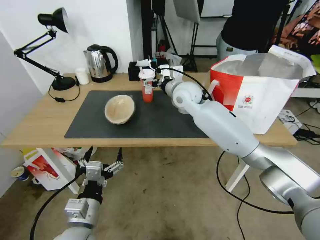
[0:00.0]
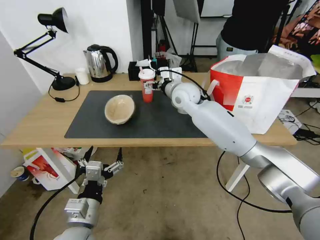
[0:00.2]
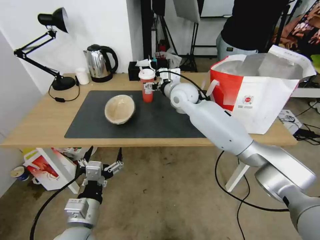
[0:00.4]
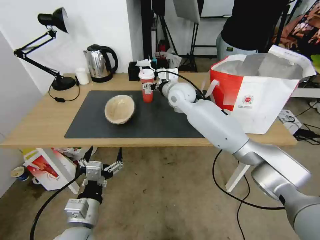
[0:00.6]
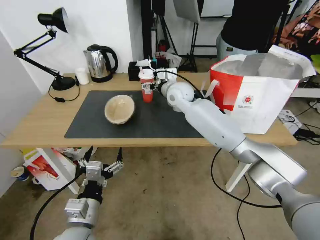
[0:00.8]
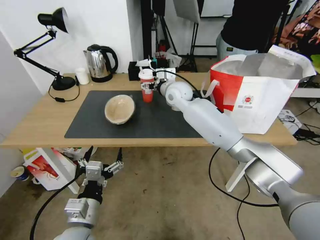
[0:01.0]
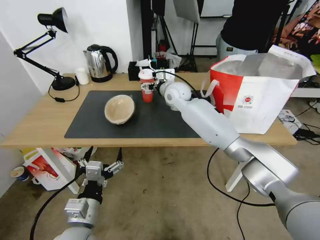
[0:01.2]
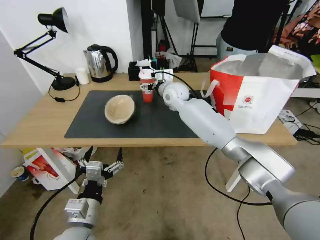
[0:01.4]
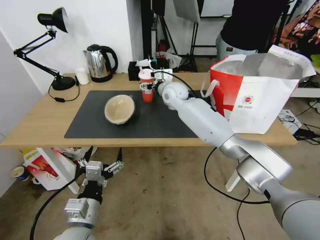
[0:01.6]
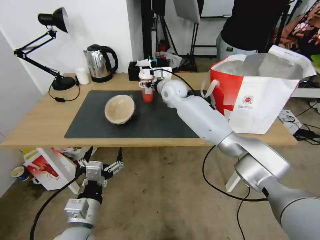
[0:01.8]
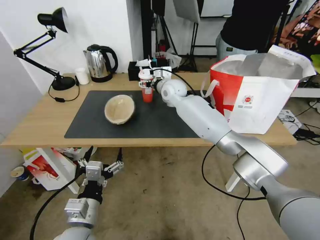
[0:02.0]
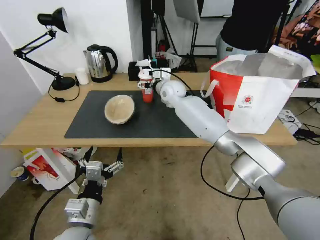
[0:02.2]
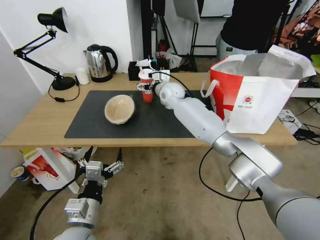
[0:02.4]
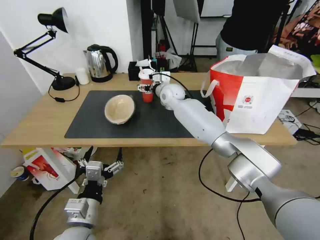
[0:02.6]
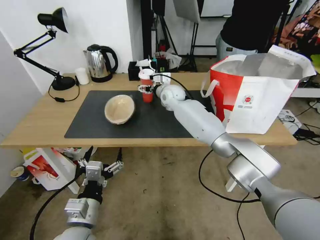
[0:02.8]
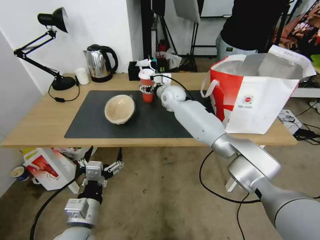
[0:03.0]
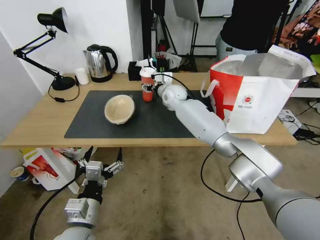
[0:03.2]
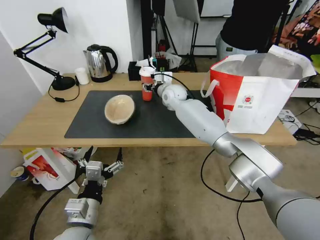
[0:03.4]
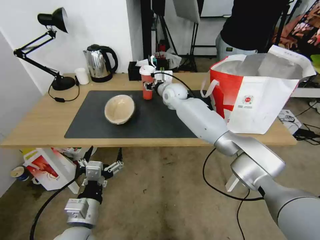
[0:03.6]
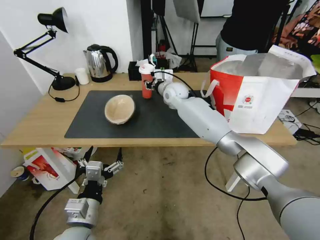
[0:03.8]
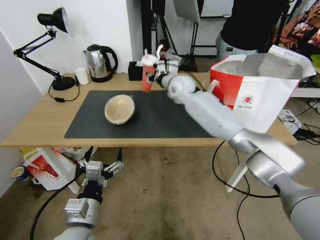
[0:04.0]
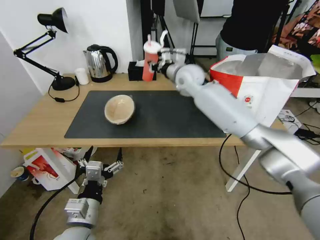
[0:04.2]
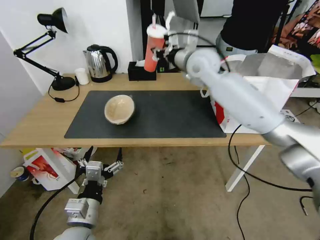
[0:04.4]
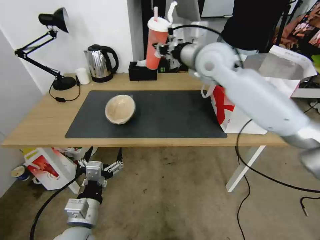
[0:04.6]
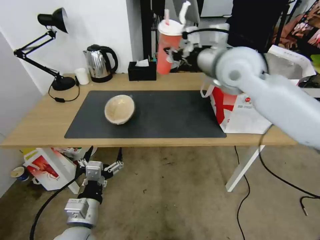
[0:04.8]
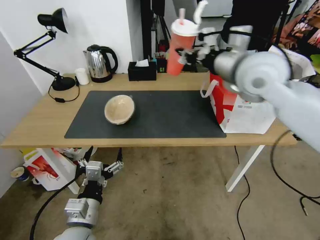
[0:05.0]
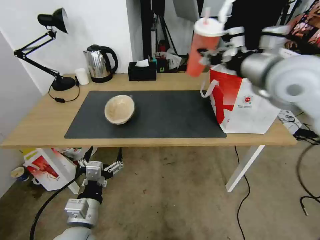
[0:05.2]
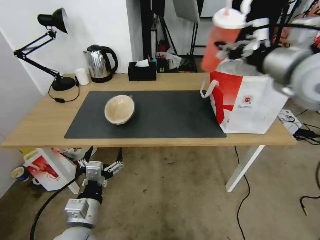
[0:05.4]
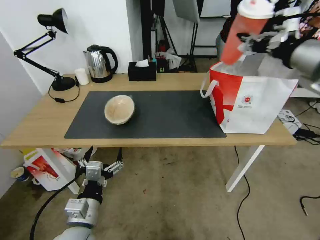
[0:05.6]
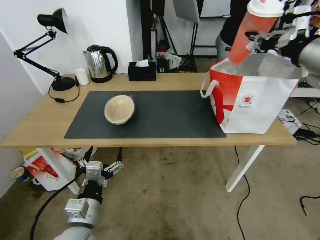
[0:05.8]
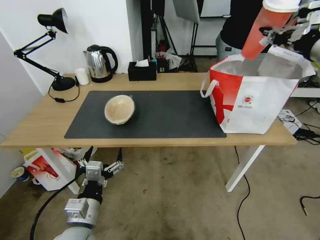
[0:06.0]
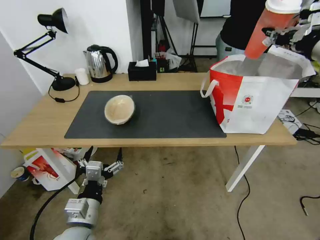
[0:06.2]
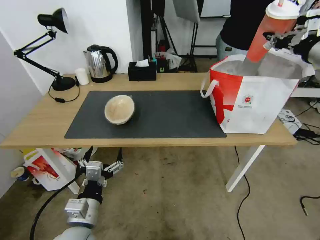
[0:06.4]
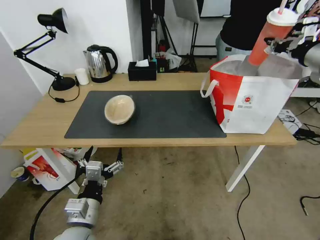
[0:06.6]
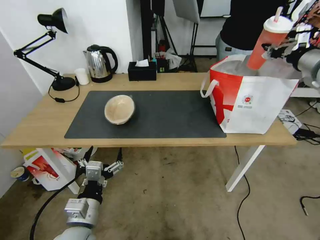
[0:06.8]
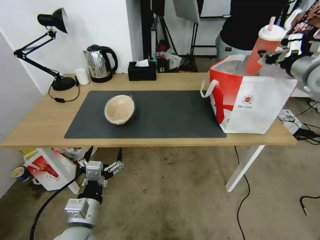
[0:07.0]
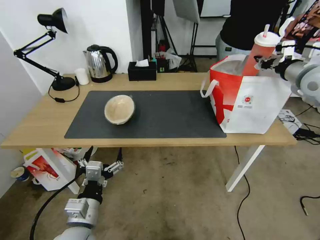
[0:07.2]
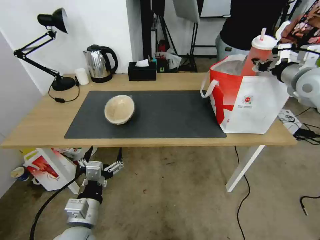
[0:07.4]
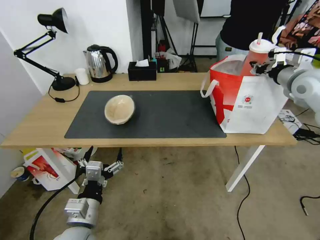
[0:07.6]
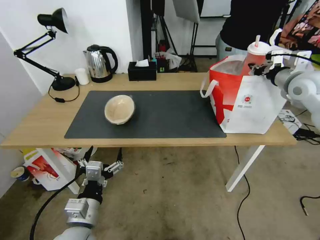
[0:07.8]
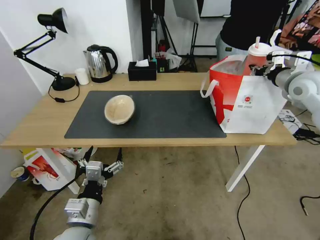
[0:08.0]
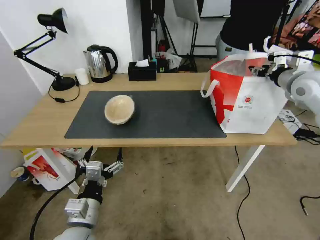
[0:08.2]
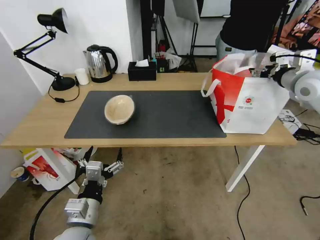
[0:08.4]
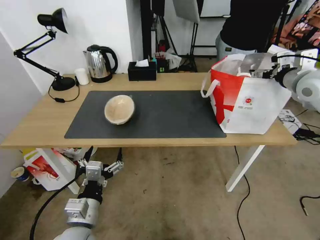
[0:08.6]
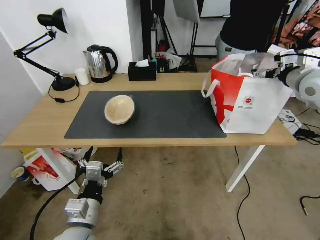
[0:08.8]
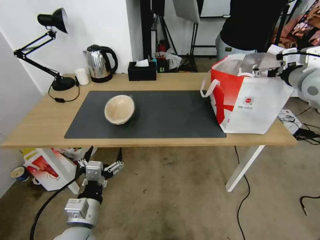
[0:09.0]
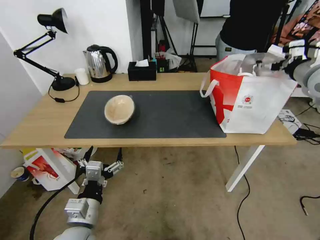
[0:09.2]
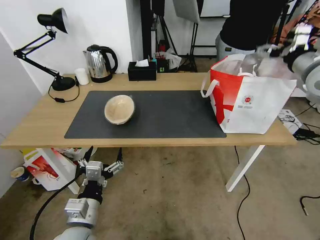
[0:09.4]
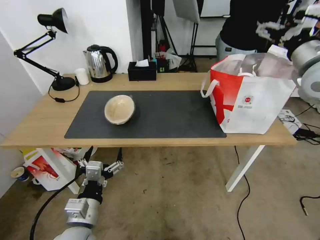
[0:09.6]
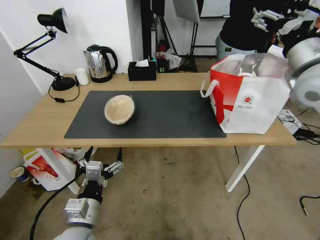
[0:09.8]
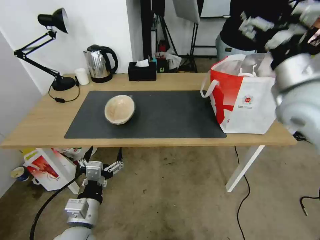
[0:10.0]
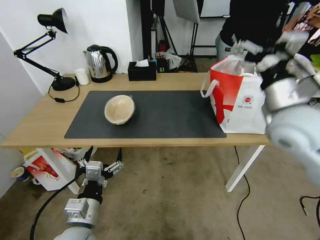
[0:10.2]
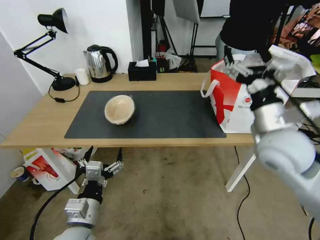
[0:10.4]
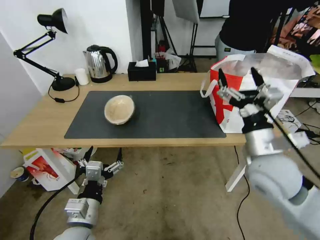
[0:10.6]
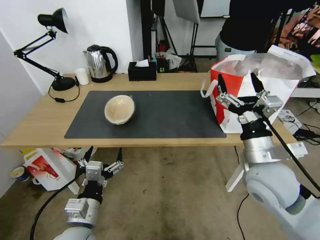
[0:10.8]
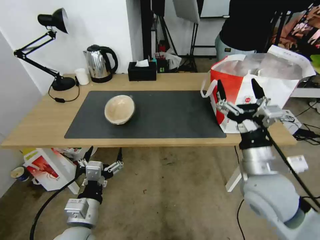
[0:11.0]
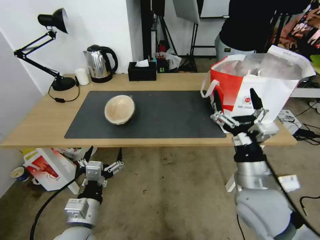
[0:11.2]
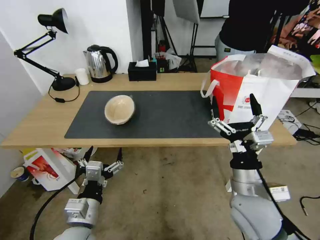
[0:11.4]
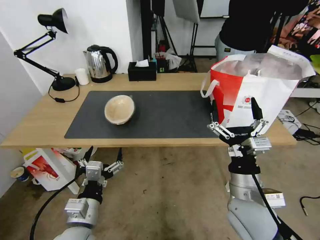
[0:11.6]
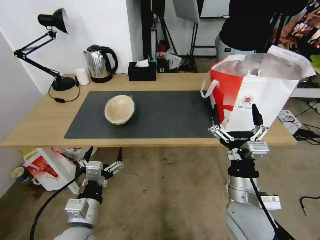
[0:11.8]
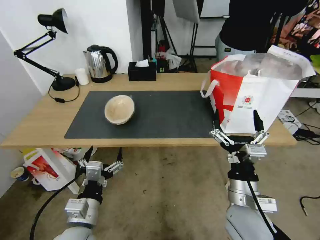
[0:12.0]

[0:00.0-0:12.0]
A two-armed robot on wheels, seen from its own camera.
Task of the whole recording: Pick up the trash from the table and place it into the takeout bag.
0:00.0 to 0:01.6: The right gripper shifts roughly 5 cm forward.
0:01.6 to 0:03.0: There are only small adjustments of the grippers.
0:03.0 to 0:04.4: The right gripper heads upward and backward, covering approximately 20 cm, and closes.
0:04.4 to 0:06.0: The right gripper moves to the right and backward, roughly 30 cm.
0:06.0 to 0:07.6: The right gripper moves downward, forward and to the right, some 15 cm.
0:07.6 to 0:09.0: The right gripper opens its fingers.
0:09.0 to 0:10.4: The right gripper shifts roughly 25 cm to the left, backward and downward.
0:10.4 to 0:12.0: The right gripper is displaced downward, backward and to the left by about 20 cm.

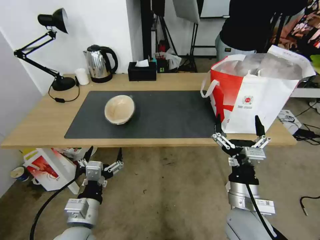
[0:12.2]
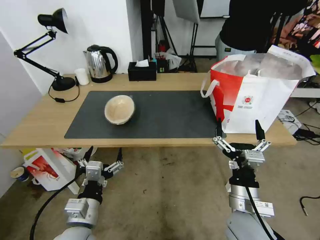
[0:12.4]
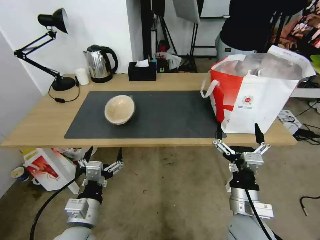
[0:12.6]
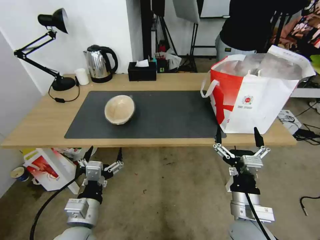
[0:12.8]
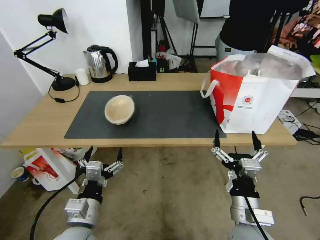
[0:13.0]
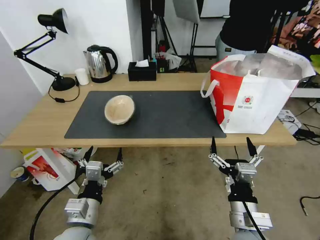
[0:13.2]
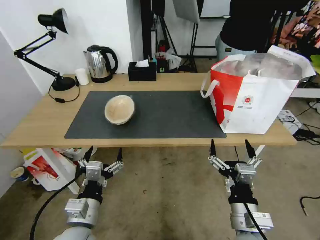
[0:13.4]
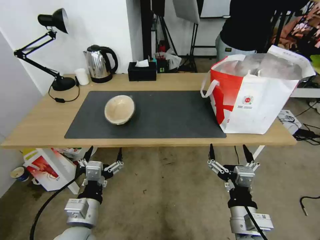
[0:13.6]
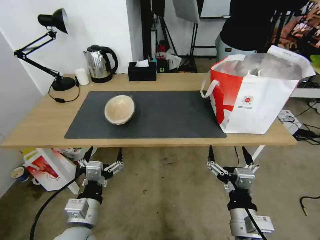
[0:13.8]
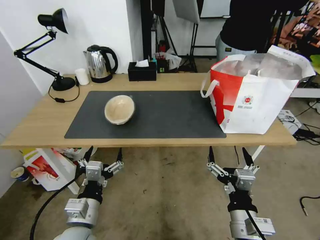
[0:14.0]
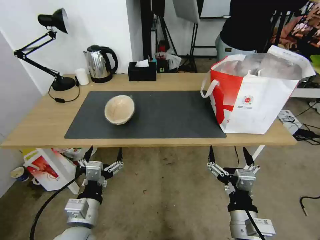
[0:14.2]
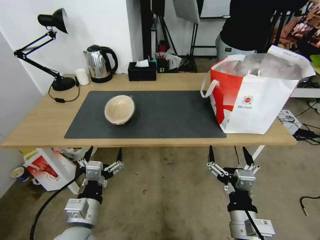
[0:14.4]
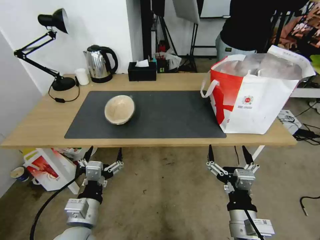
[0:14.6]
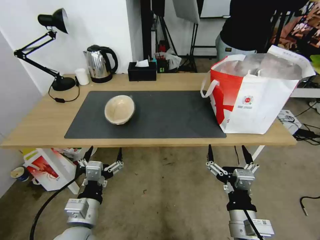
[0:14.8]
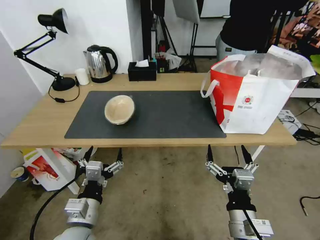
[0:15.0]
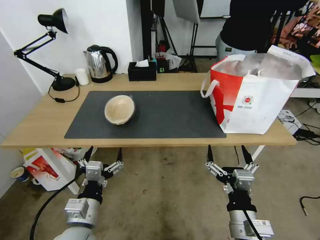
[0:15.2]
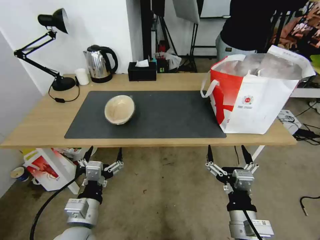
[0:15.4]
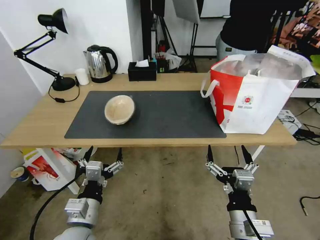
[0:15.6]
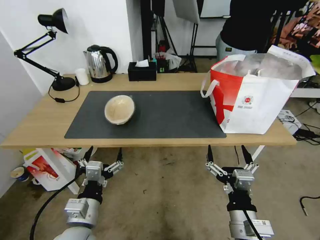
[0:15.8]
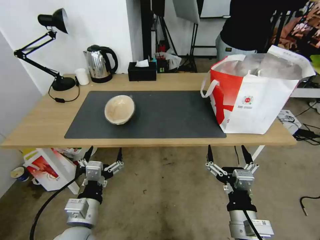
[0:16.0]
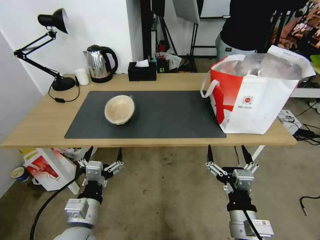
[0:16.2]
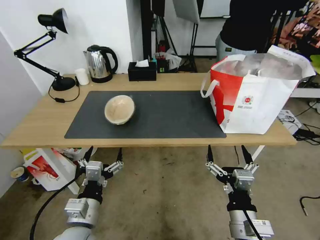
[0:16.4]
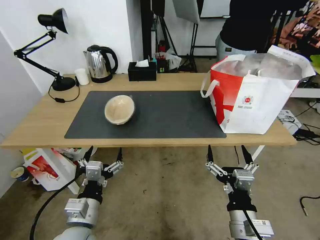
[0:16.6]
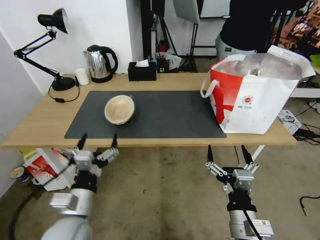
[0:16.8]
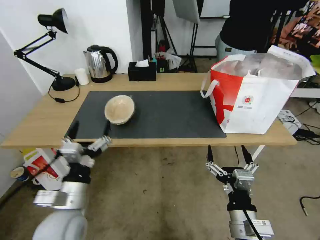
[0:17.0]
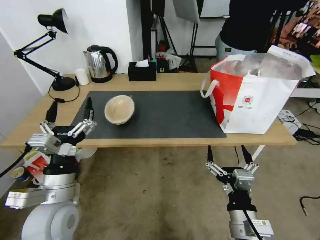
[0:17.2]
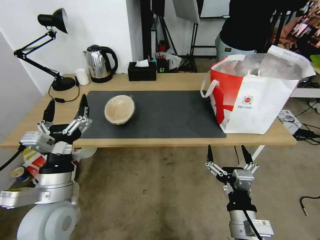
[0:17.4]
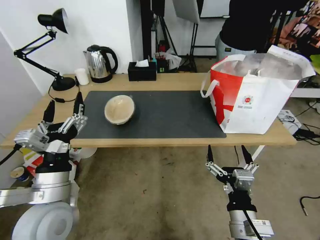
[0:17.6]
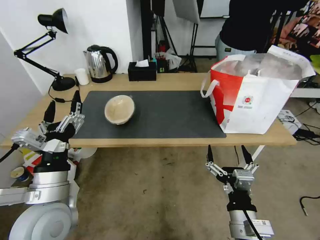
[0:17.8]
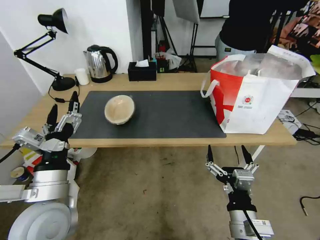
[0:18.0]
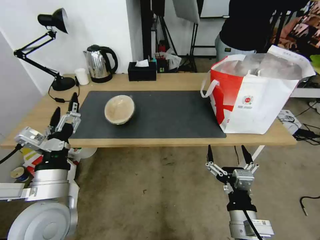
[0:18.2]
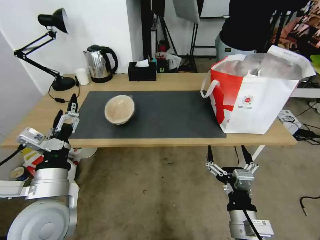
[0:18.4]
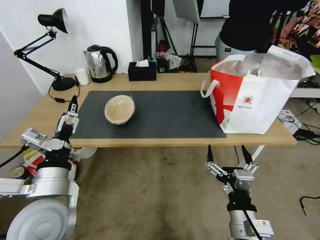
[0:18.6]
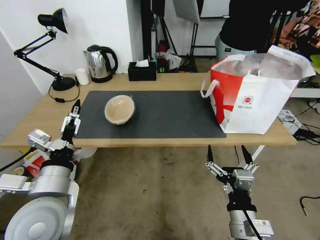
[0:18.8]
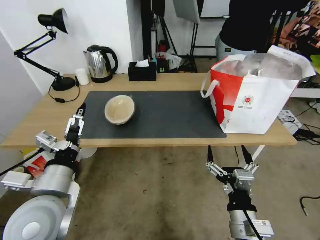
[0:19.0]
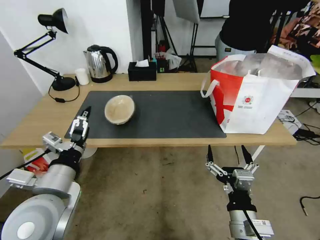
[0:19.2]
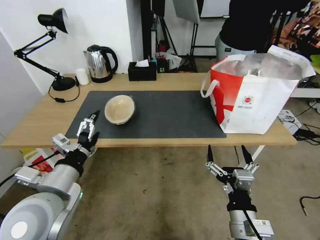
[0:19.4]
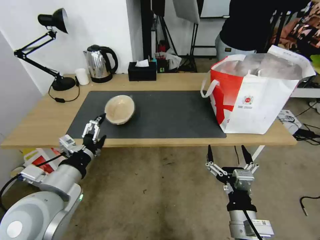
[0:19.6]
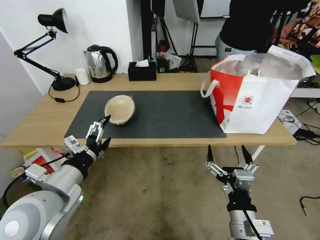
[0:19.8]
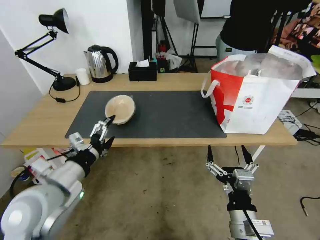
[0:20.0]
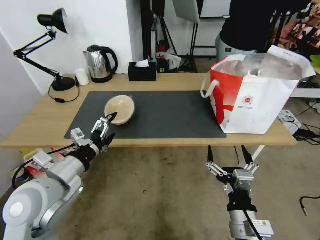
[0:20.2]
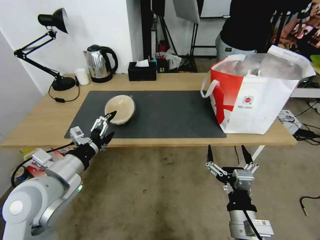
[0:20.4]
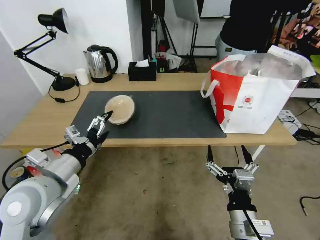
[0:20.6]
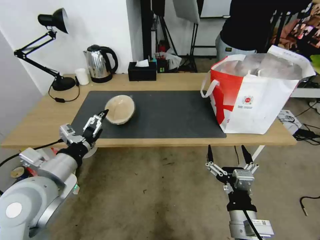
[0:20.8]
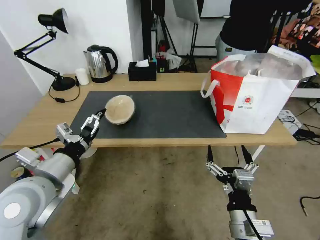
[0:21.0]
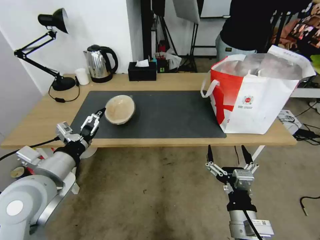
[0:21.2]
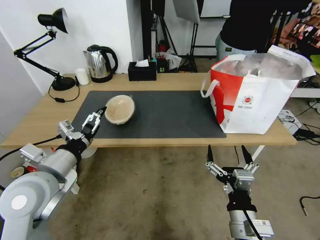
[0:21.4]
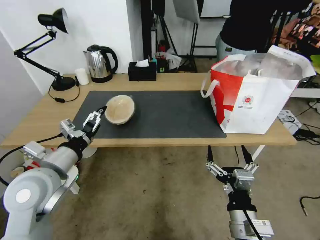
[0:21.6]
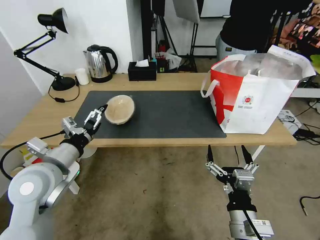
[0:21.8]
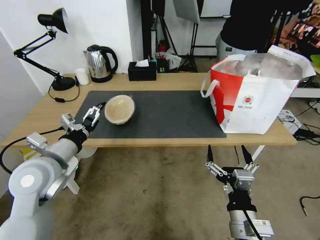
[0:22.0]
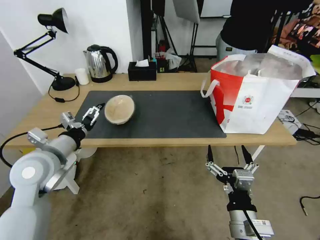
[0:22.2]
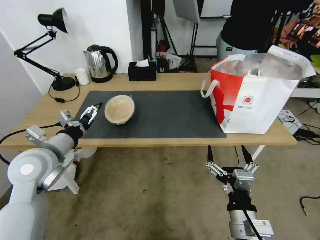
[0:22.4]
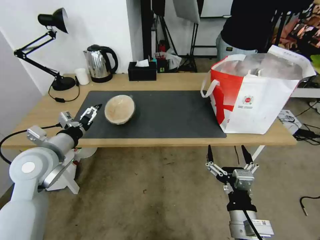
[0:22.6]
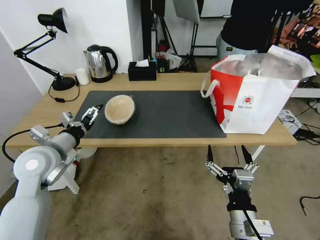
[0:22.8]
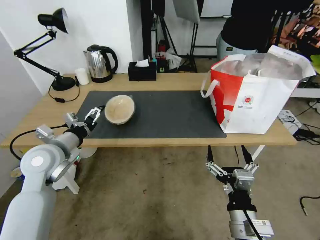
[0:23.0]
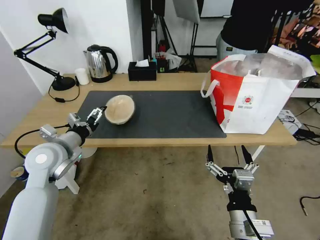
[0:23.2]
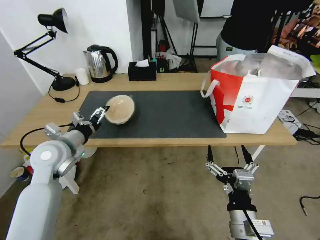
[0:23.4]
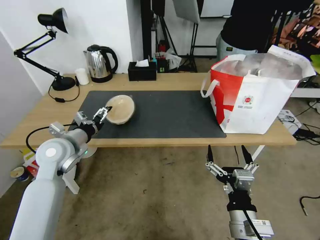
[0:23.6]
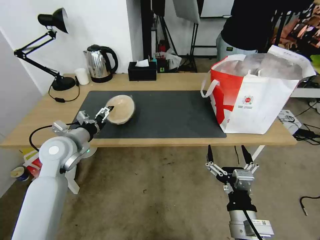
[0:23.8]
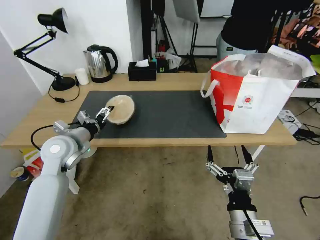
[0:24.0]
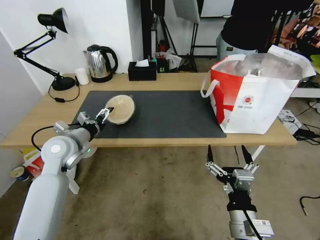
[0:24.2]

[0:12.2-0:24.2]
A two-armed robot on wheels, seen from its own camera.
Task of the whole recording: Pick up the trash from the table and place it into the takeout bag.
0:12.2 to 0:13.8: The right gripper heads backward, covering approximately 5 cm.
0:13.8 to 0:16.6: Both grippers stay put.
0:16.6 to 0:18.2: The left gripper shifts approximately 10 cm upward.
0:19.8 to 0:21.2: The grippers make only small movements.
0:21.2 to 0:22.6: The left gripper travels forward by some 10 cm.
0:22.6 to 0:24.2: The left gripper moves forward, some 5 cm.
